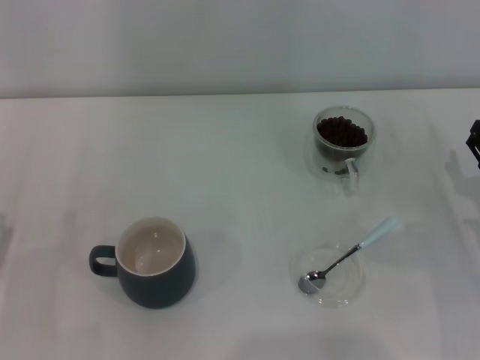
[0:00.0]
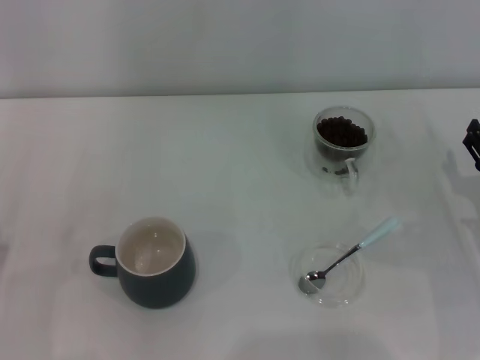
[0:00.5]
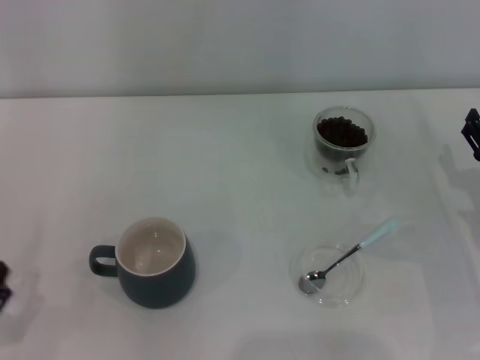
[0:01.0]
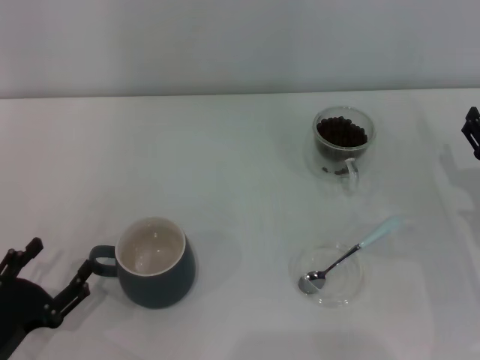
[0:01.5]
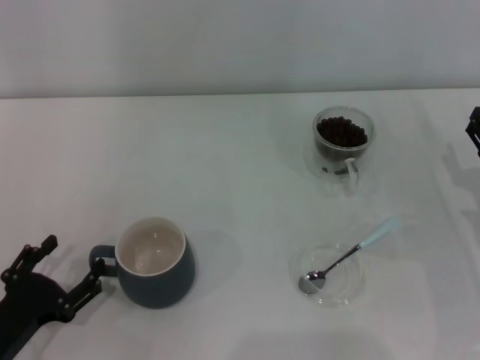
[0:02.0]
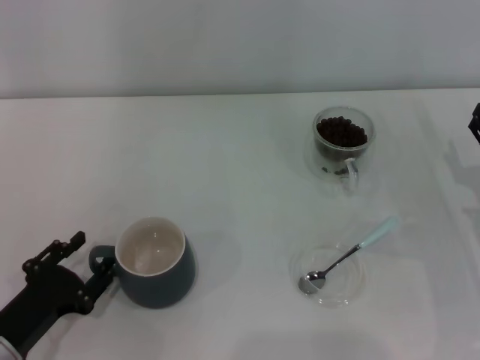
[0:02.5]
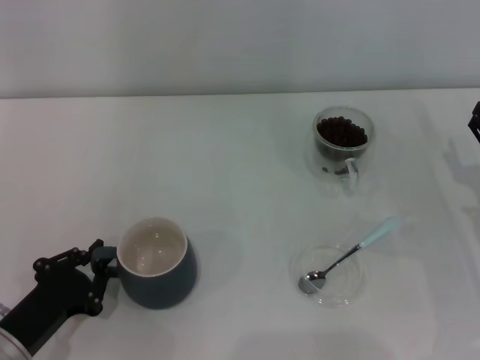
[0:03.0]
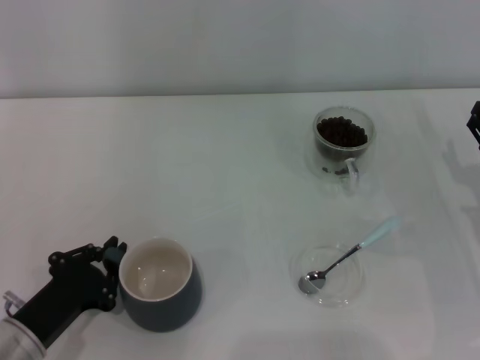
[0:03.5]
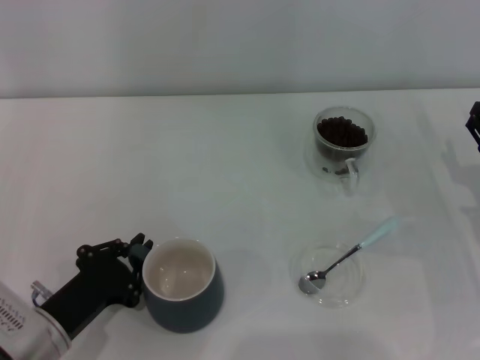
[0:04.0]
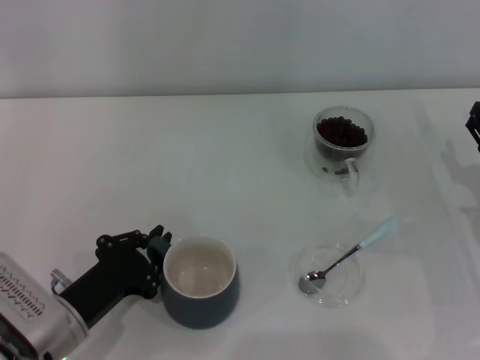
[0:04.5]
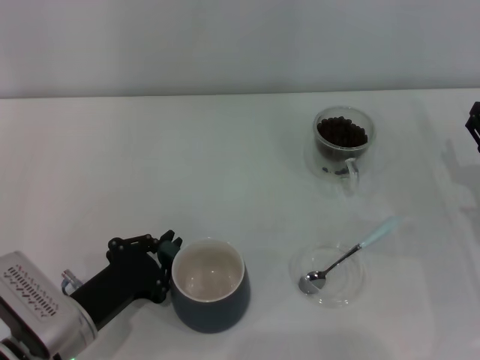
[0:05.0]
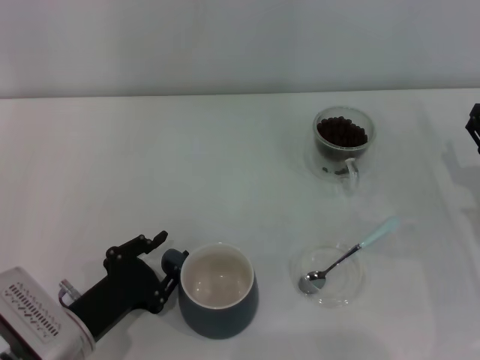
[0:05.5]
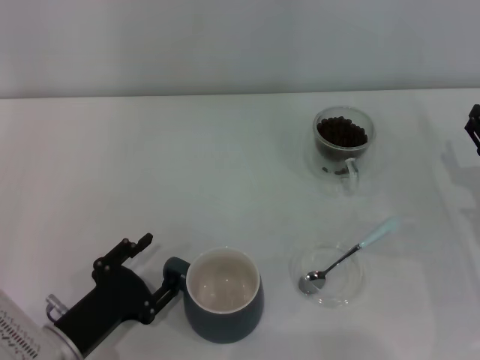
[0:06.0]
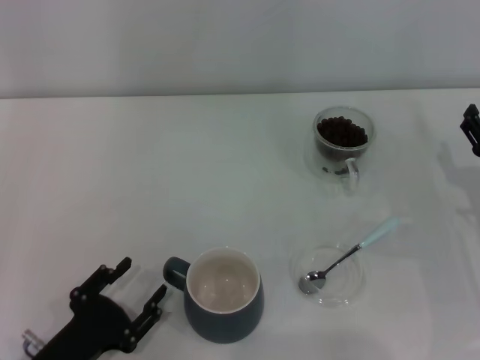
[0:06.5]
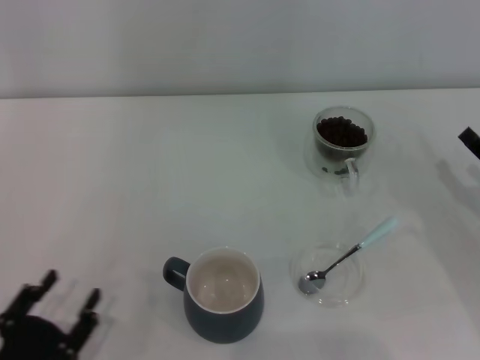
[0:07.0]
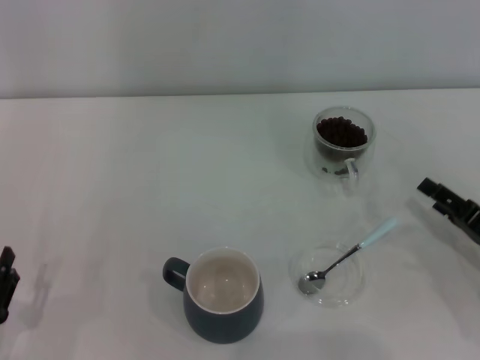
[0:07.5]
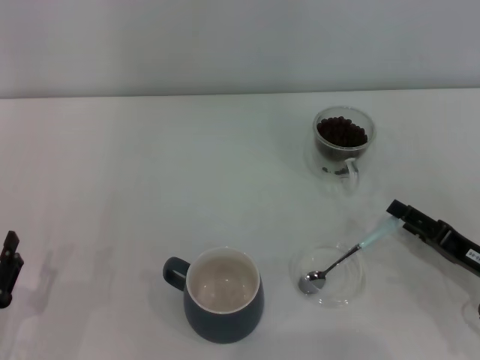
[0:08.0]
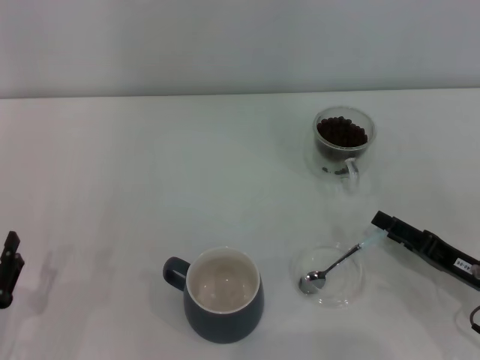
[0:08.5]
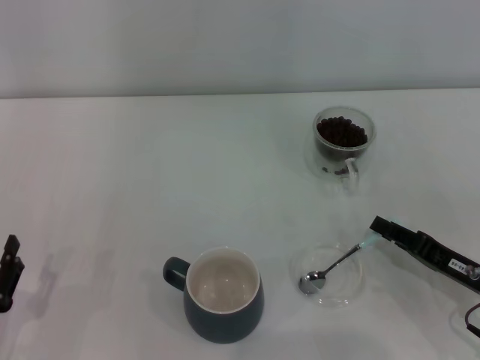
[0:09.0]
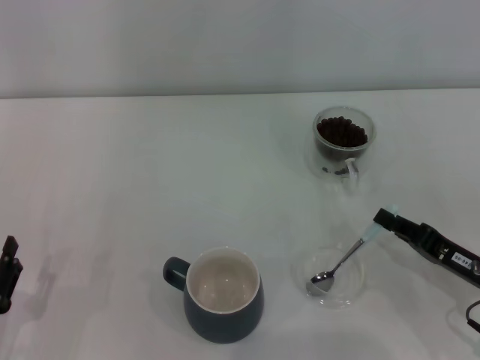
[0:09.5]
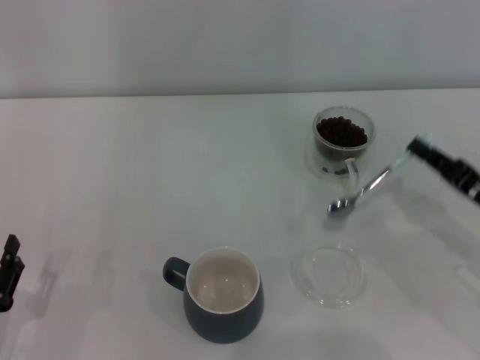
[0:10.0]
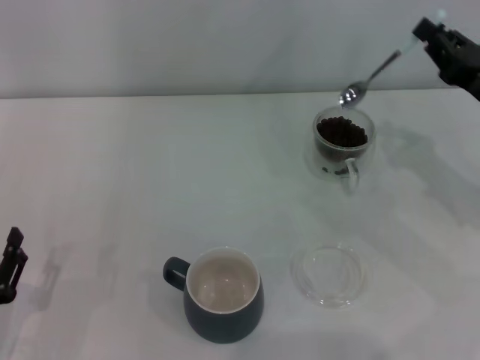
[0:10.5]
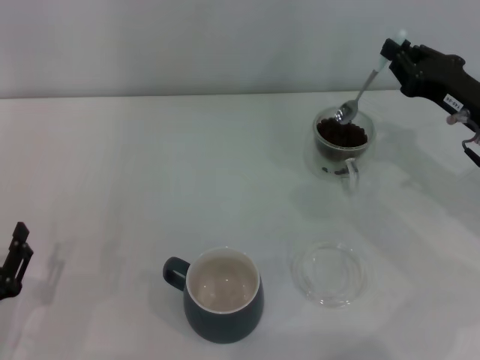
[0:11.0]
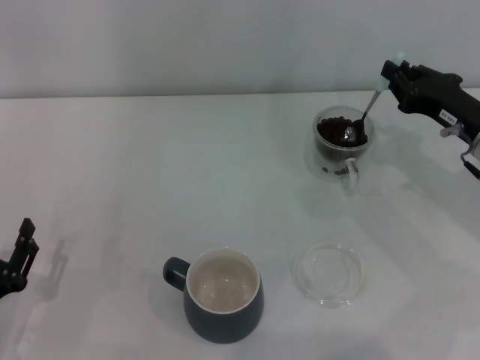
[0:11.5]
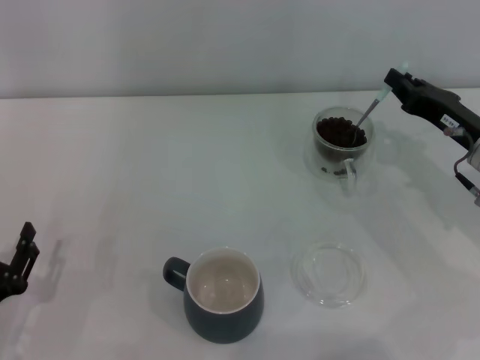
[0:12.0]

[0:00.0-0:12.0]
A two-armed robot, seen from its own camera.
Task of the whole recording: Use a blue spoon to take out the coffee beans from the glass and pour them into the gray cup.
Step, 0:00.0 to 0:06.5: Move the cup to the center of view with the left gripper.
Step, 0:07.0 to 0:09.5: Pick up the spoon with the right gripper.
0:02.0 to 0:04.0: The left gripper heads to the right, covering roughly 5 cm, and closes.
0:04.0 to 0:06.0: The left gripper opens its fingers.
0:06.0 to 0:08.0: The right gripper shifts roughly 5 cm backward. The left gripper moves to the left, approximately 10 cm.
0:08.0 to 0:10.0: The right gripper shifts by roughly 5 cm, and closes its fingers.
0:10.0 to 0:12.0: The right gripper travels forward by some 10 cm.

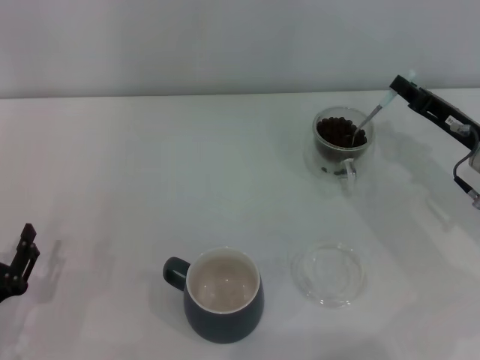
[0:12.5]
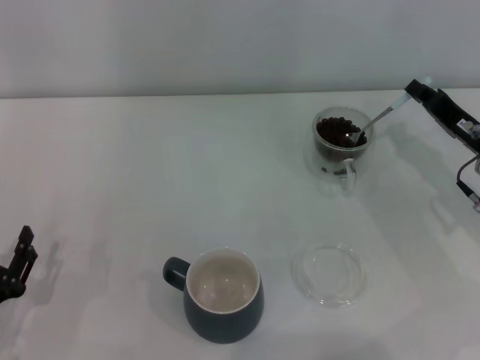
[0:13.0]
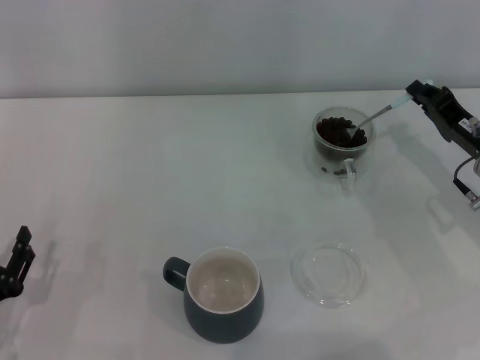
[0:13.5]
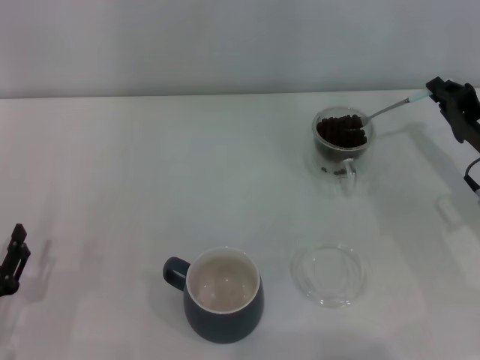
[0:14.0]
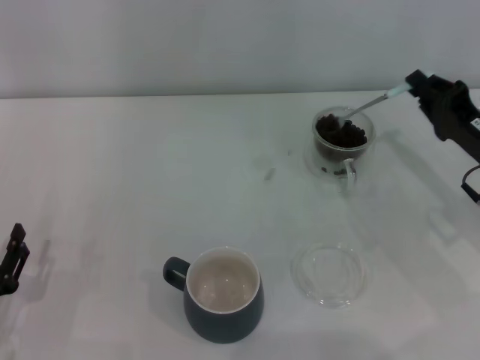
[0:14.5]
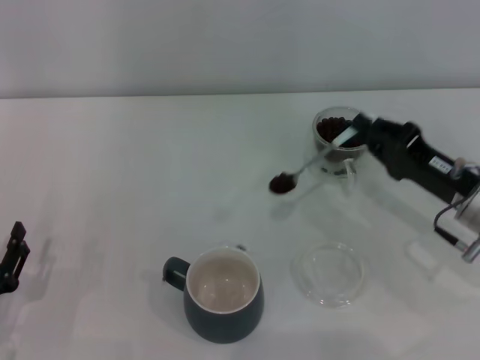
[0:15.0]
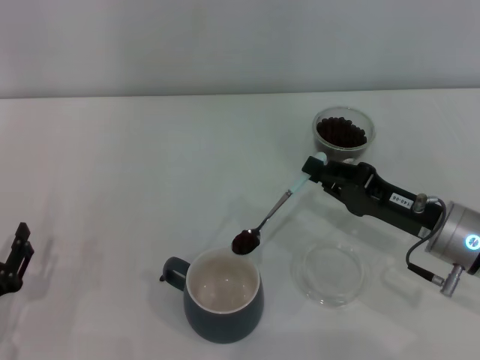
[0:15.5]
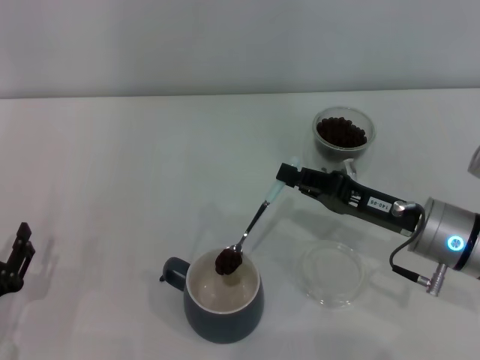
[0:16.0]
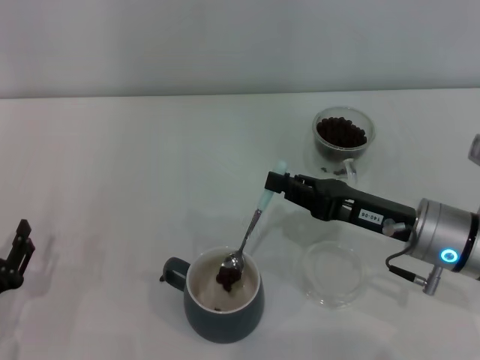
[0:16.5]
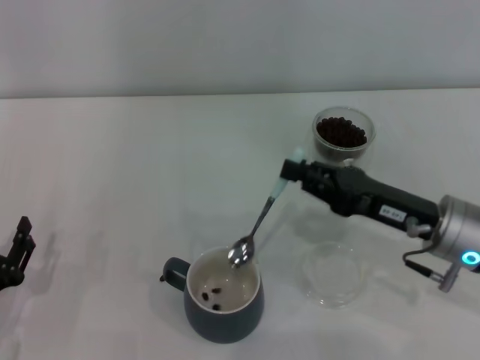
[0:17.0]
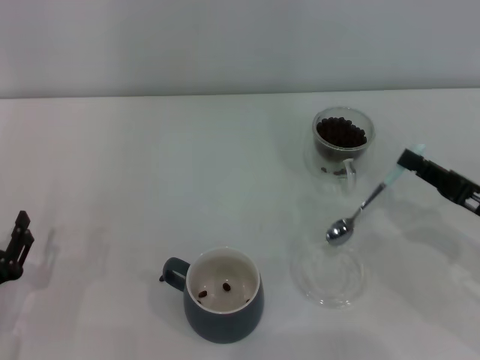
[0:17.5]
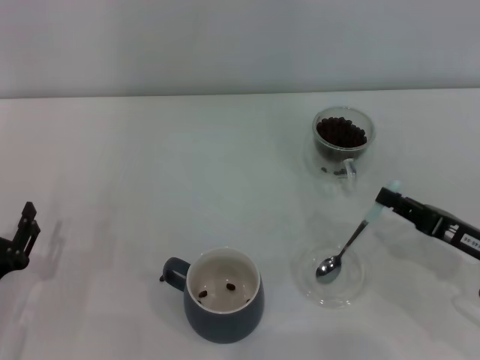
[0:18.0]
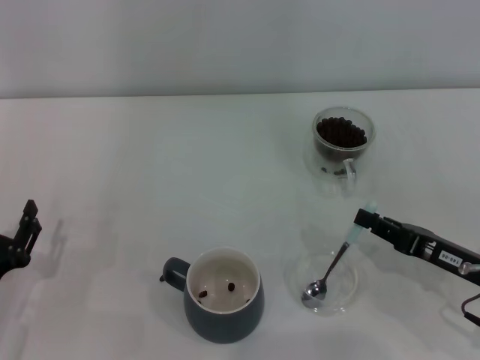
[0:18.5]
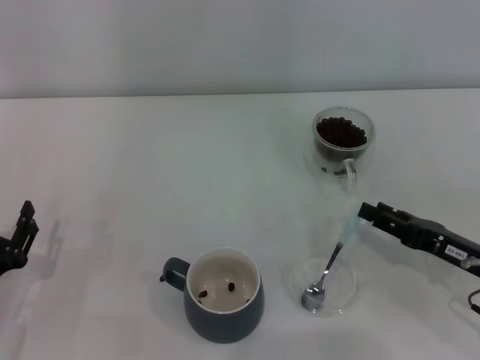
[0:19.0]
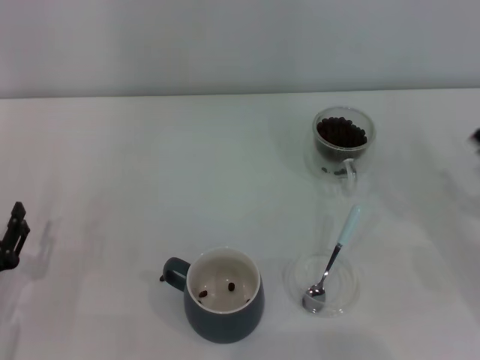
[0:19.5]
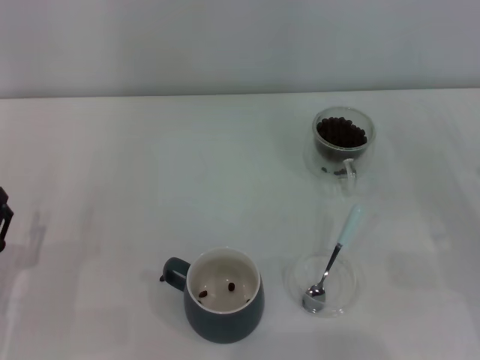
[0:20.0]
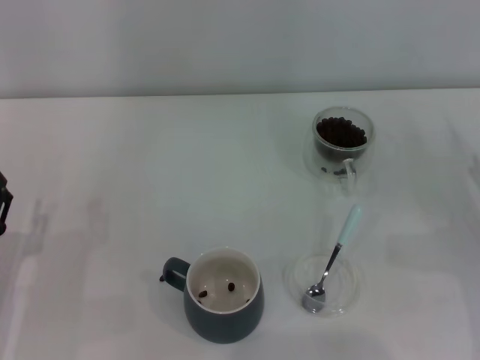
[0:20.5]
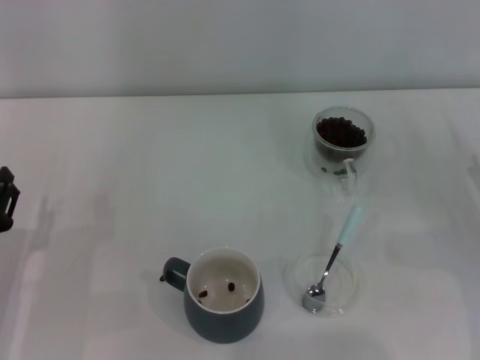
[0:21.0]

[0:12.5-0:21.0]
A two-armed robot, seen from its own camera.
Task of the whole recording: Use a blue spoon to take out the coffee beans from the glass and pour them into the gray cup.
Step, 0:12.5 to 0:17.0: Scoop a spoonful of beans into the cup with the right gripper.
Step, 0:17.5 to 0:19.0: Place the spoon back in its original place with the right gripper.
0:14.5 to 0:16.5: The right gripper is displaced to the left by some 10 cm.
0:16.5 to 0:19.0: The right gripper shifts approximately 10 cm to the right, and opens.
0:19.0 to 0:21.0: The right gripper travels to the right by approximately 5 cm, and opens.
